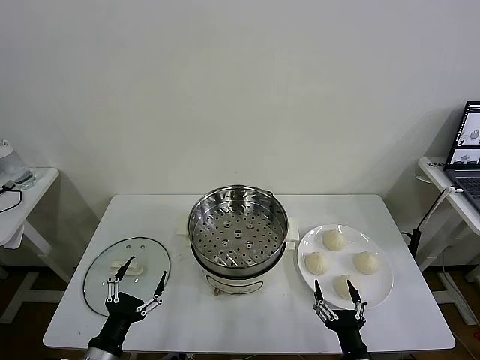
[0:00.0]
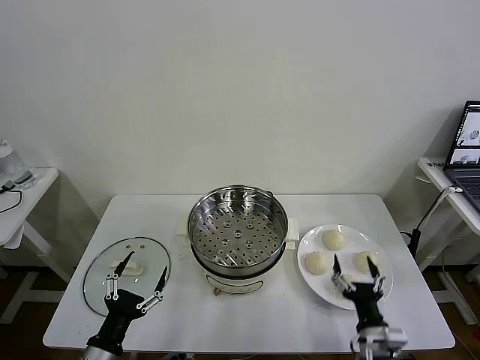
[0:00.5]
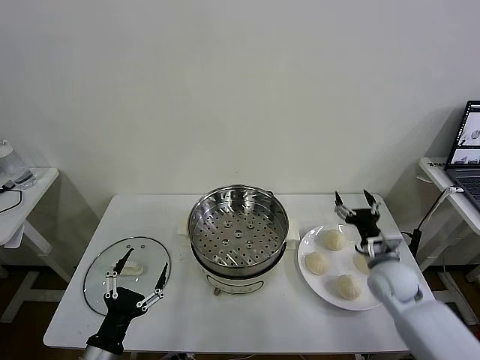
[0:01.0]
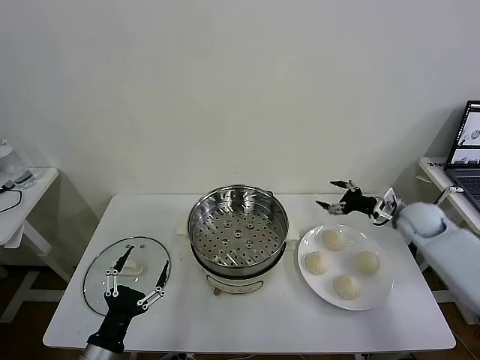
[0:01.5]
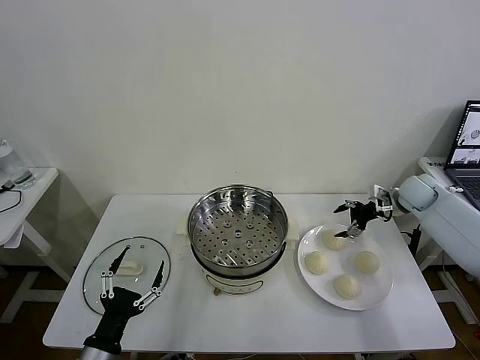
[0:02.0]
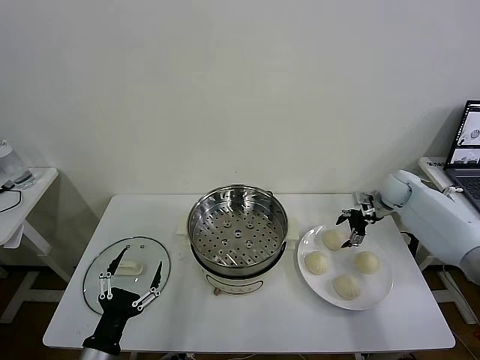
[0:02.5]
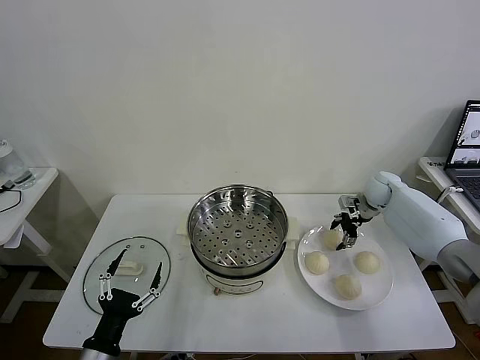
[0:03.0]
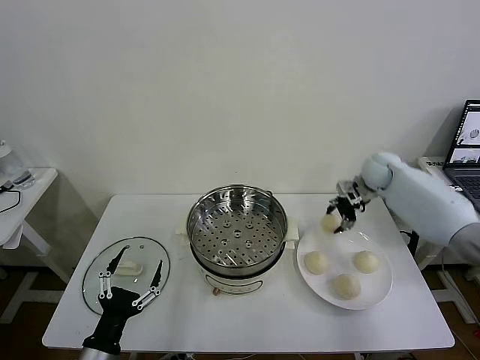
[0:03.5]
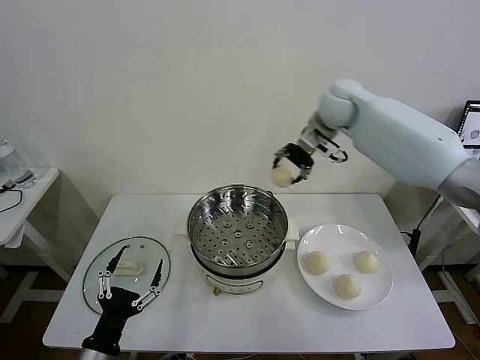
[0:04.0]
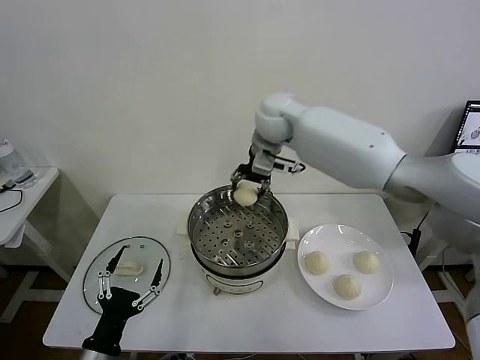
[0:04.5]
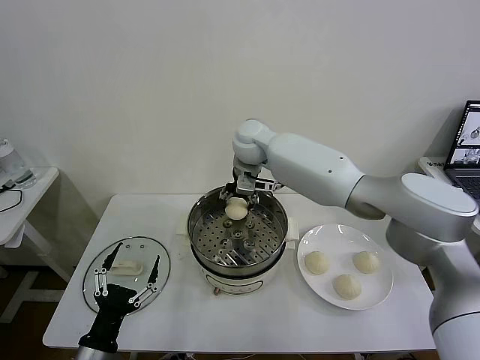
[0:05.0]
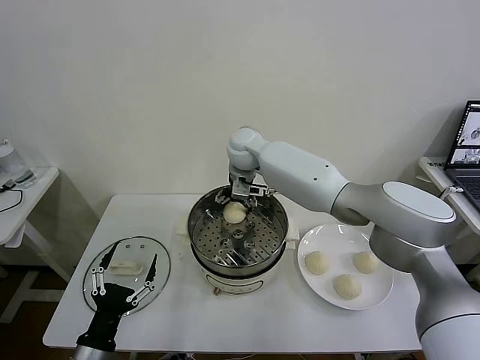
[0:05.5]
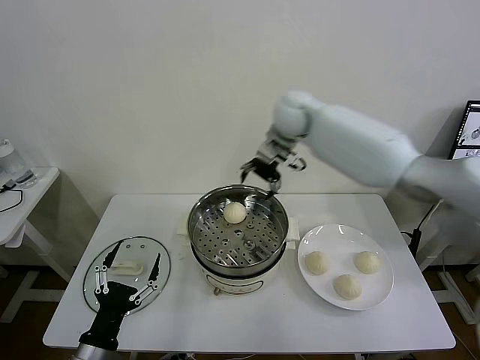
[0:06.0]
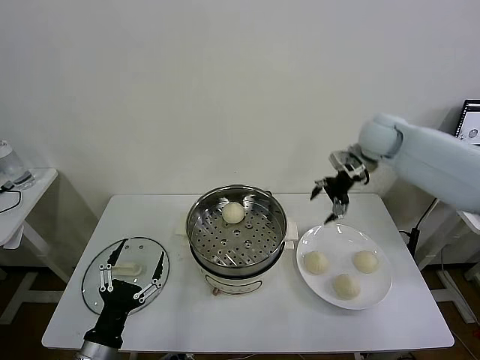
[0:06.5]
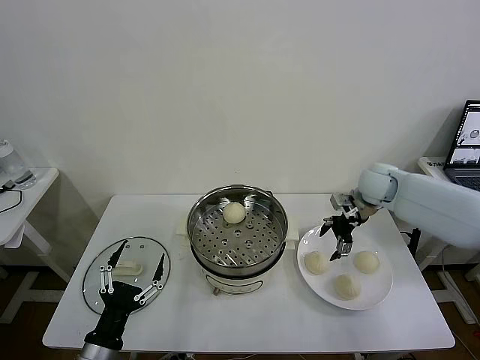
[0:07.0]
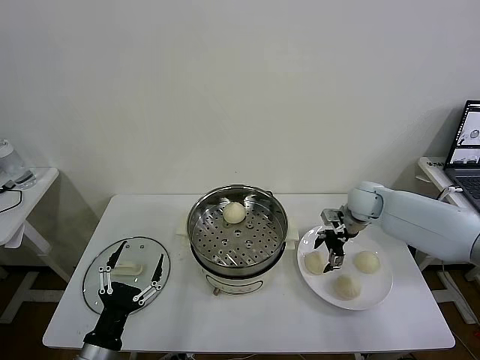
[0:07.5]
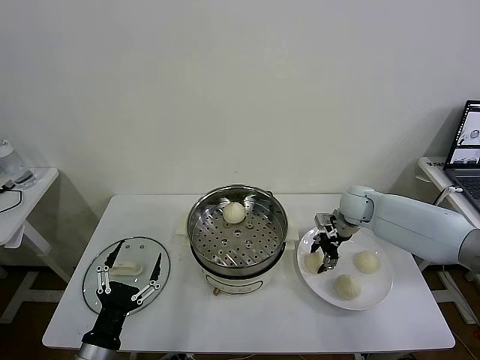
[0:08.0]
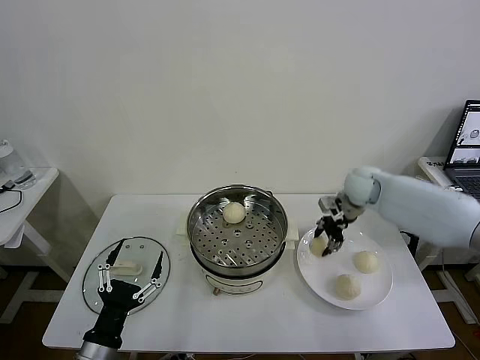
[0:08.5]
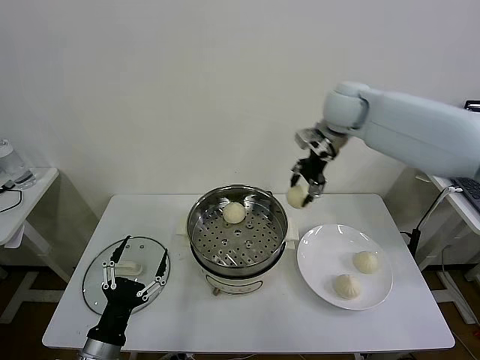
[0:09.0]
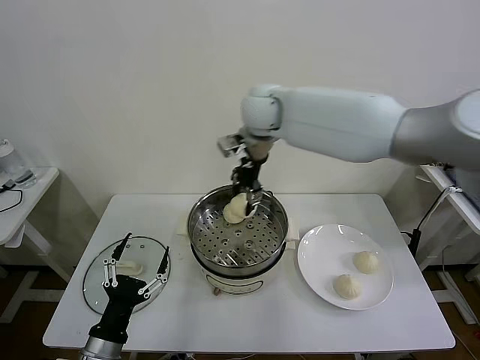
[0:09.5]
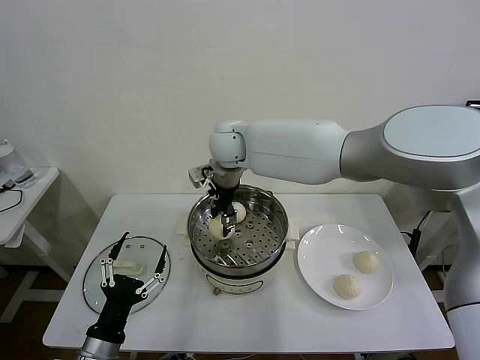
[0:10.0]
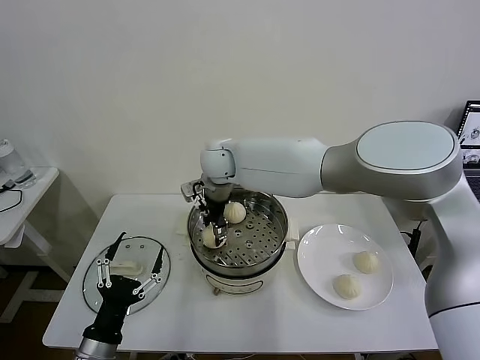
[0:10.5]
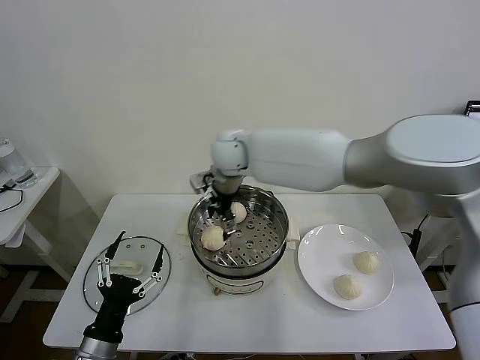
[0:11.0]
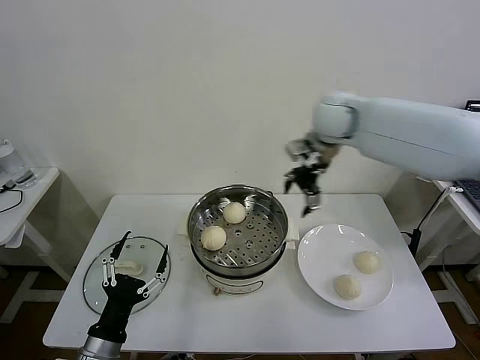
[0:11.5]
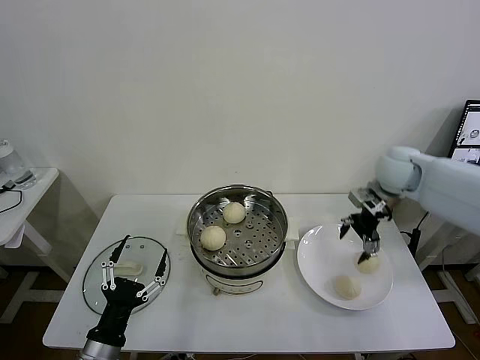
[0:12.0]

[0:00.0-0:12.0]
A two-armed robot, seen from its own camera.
Task of the whole recording: take steamed baozi put them in steamer then cover it.
Step, 0:00.0 to 0:03.0: Grasp the baozi in the plate with right gripper.
Step, 0:03.5 to 0:05.5: Place the baozi on the steamer with right gripper.
Step, 0:06.0 to 0:08.0: Grasp the baozi in the plate with right gripper.
Step, 0:08.5 to 0:10.5: Place the baozi on the steamer with right gripper.
0:02.0 to 0:04.0: The right gripper shifts roughly 35 cm to the left and upward, and closes up.
0:04.0 to 0:06.0: The right gripper goes to the left and returns, approximately 15 cm each way, and opens its fingers.
0:06.0 to 0:08.0: The right gripper shifts some 25 cm downward and to the right, and closes.
0:08.0 to 0:10.0: The right gripper goes about 40 cm to the left and upward.
0:10.0 to 0:12.0: The right gripper goes some 40 cm to the right, and opens up.

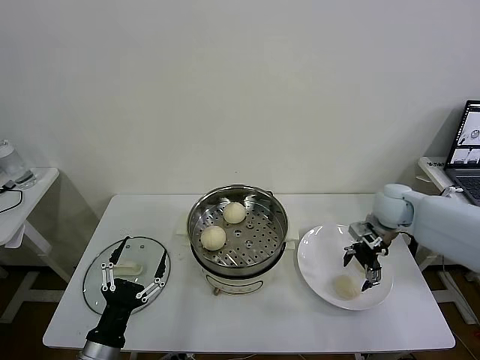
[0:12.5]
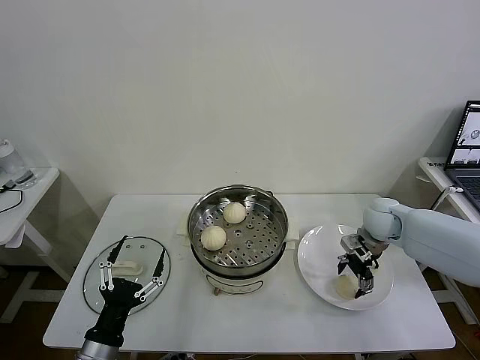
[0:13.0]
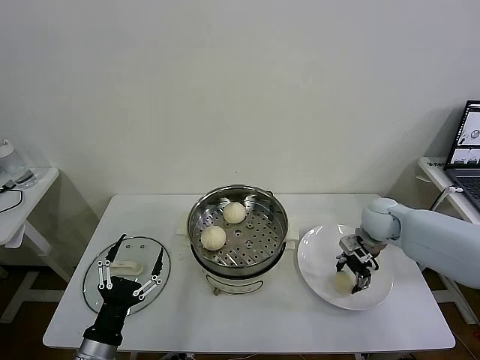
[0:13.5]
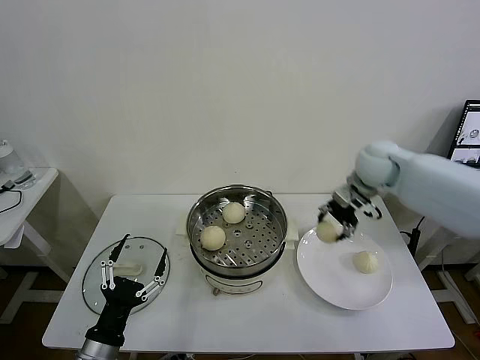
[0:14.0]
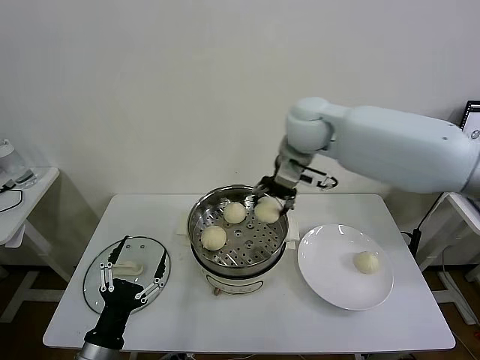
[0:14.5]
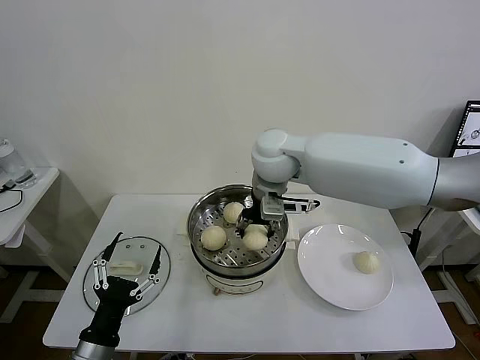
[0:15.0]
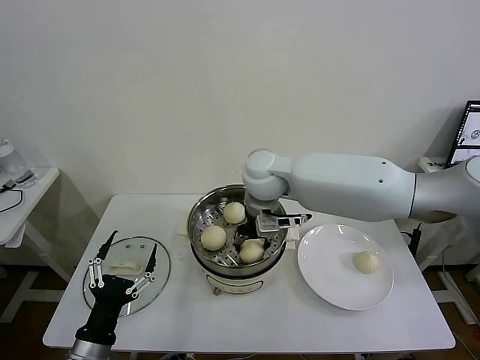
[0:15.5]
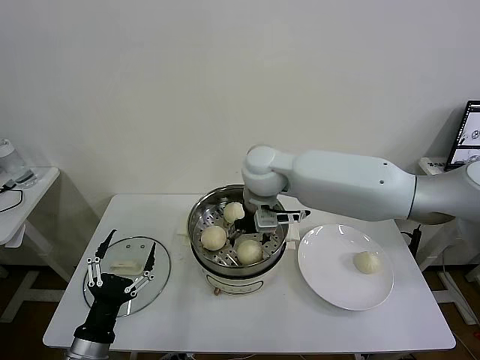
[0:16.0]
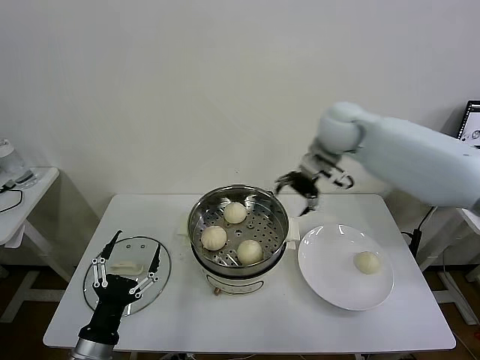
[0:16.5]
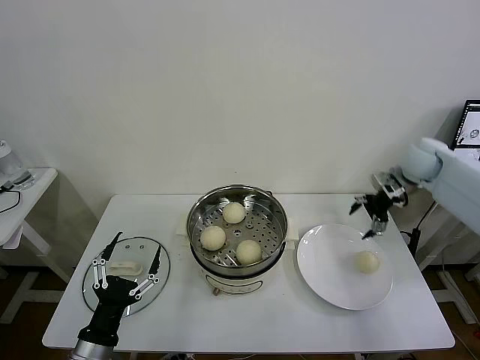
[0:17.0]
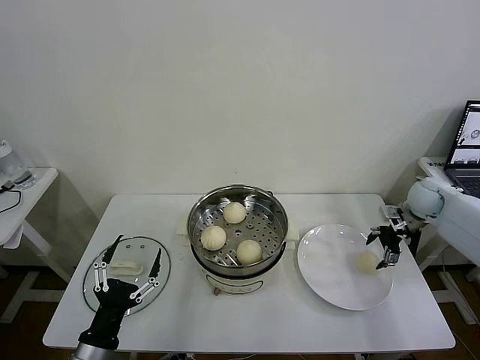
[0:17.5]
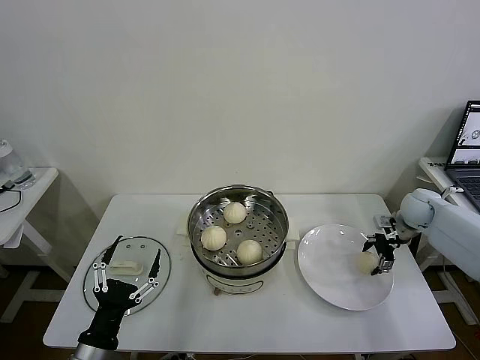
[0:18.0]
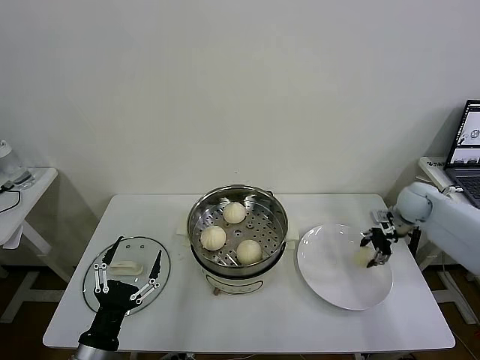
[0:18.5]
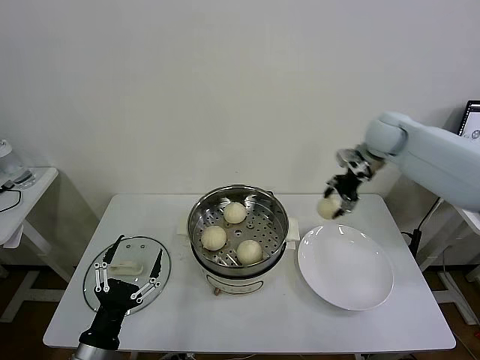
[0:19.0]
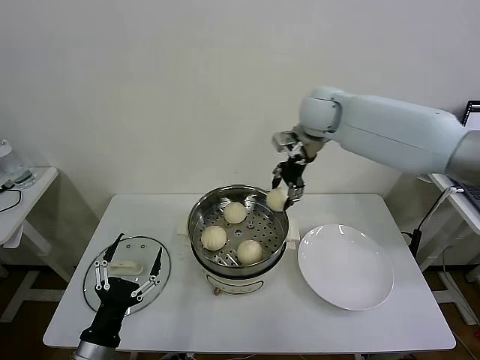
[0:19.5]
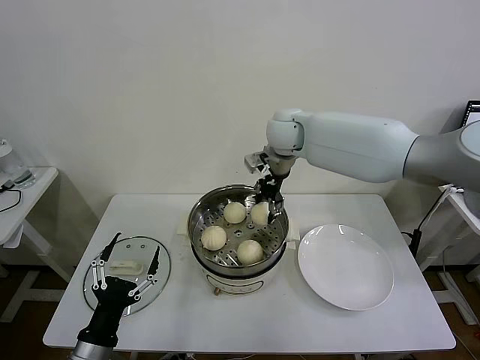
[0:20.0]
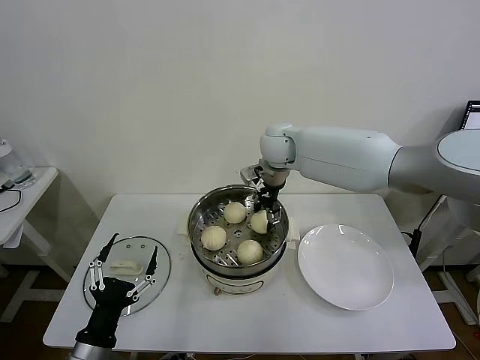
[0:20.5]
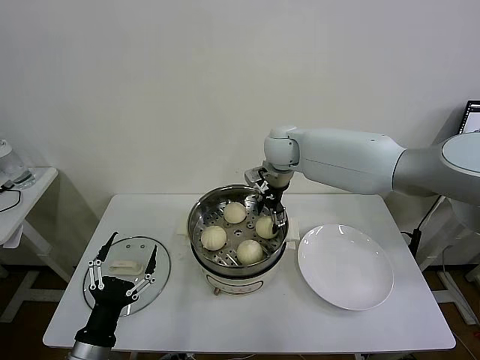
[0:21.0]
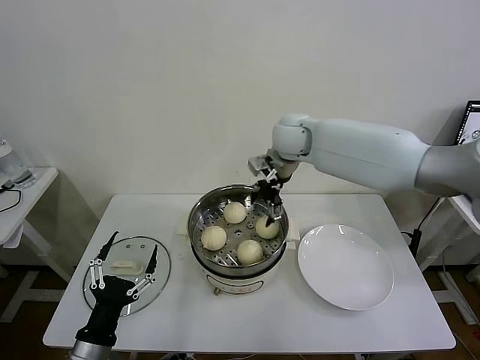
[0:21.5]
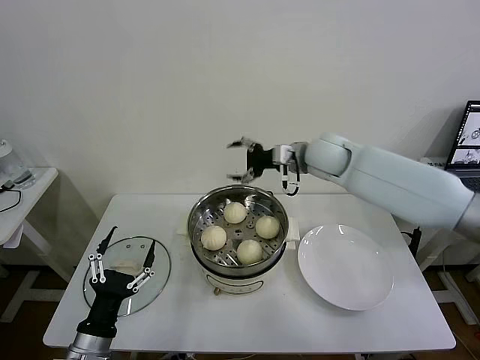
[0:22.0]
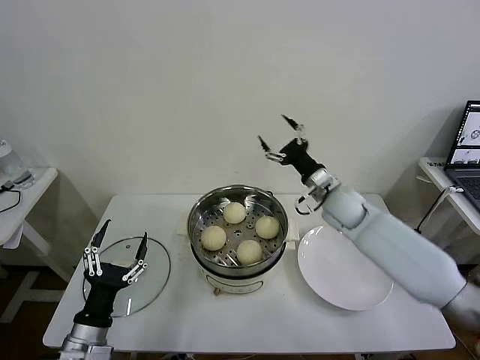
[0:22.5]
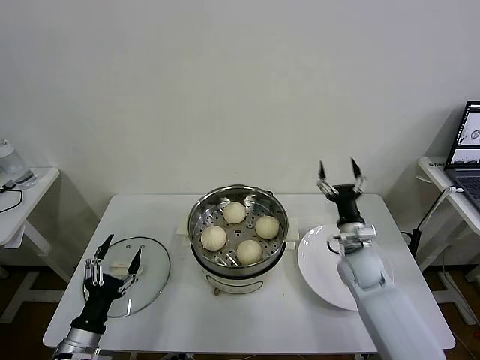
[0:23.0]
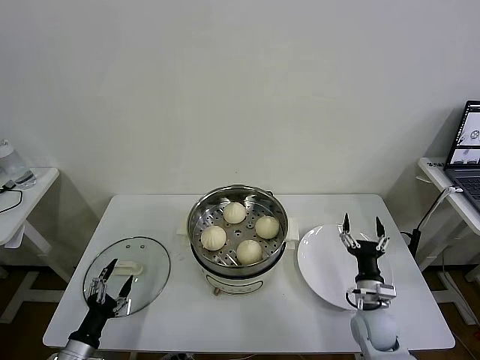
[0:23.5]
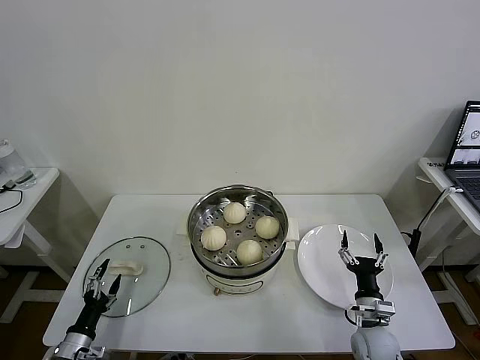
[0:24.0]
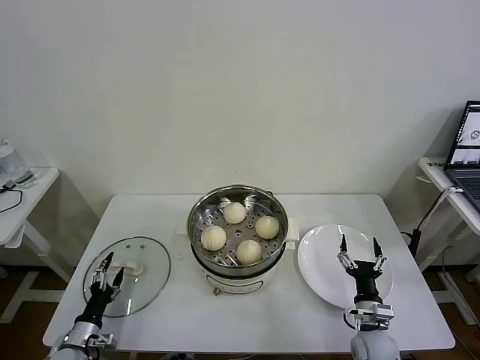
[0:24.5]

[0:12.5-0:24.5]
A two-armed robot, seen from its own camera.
Task of the whole recording: take steamed baozi put them in steamer then cover it.
Step, 0:13.5 to 0:15.5: Place the baozi on the steamer with right gripper.
Step, 0:16.0 to 0:18.0: Grasp the baozi in the plate with right gripper.
Step, 0:18.5 to 0:21.0: Place the baozi on the steamer with right gripper.
0:12.5 to 0:14.5: The right gripper shifts about 30 cm to the left and upward, and closes up.
0:14.5 to 0:16.5: The right gripper shifts some 15 cm to the right, and opens its fingers.
0:16.5 to 0:18.5: The right gripper shifts roughly 30 cm to the right and downward, and closes its fingers.
0:18.5 to 0:20.5: The right gripper moves to the left, some 35 cm.
0:20.5 to 0:22.5: The right gripper is displaced to the right, downward and backward by roughly 20 cm, and opens its fingers.
0:22.5 to 0:24.5: The left gripper goes some 20 cm downward and to the left; the right gripper shifts some 35 cm backward and downward.

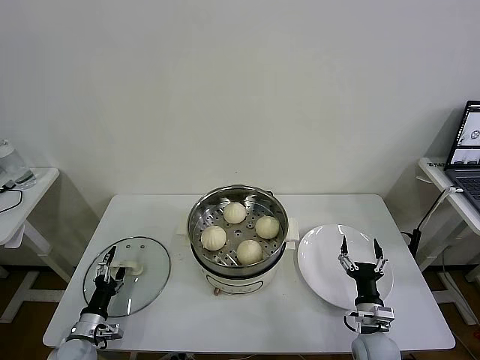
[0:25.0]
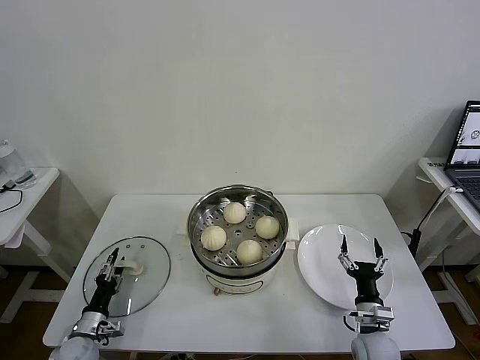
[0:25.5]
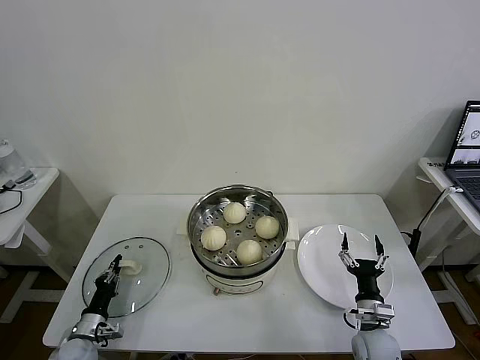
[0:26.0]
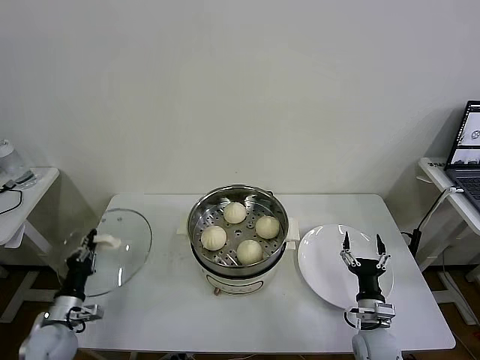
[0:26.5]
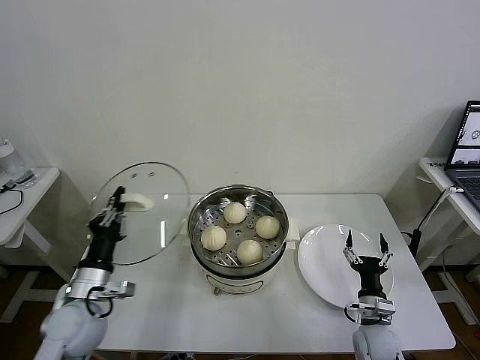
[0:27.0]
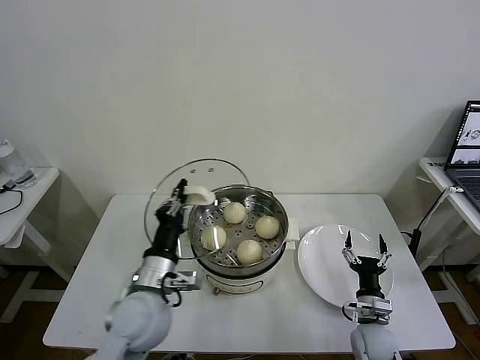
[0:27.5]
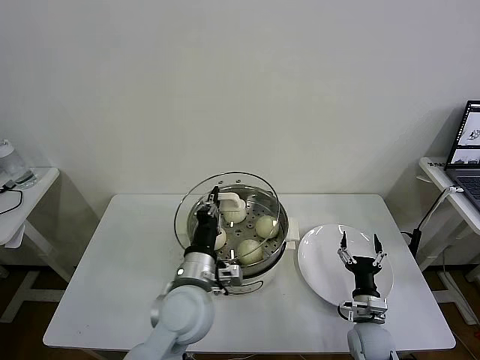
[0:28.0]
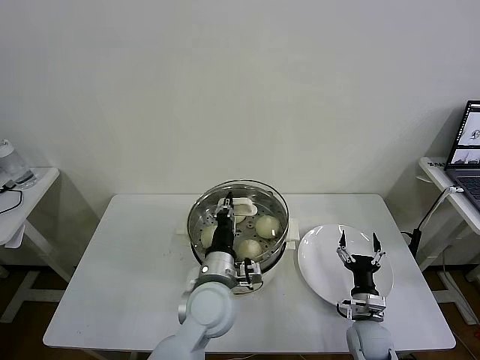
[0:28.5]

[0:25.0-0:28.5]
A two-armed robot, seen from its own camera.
Task of the whole recording: take steamed baozi put them in steamer then cover it.
0:25.0 to 0:27.0: The left gripper goes some 20 cm upward and to the right, and closes its fingers.
0:27.0 to 0:28.5: The left gripper heads to the right, covering approximately 25 cm.
